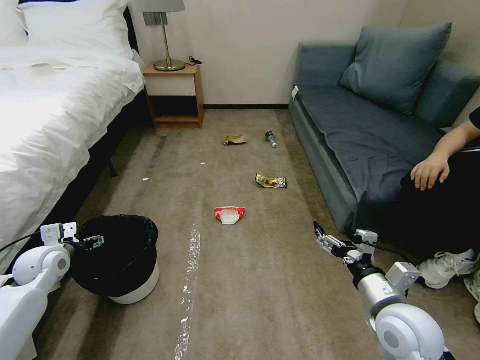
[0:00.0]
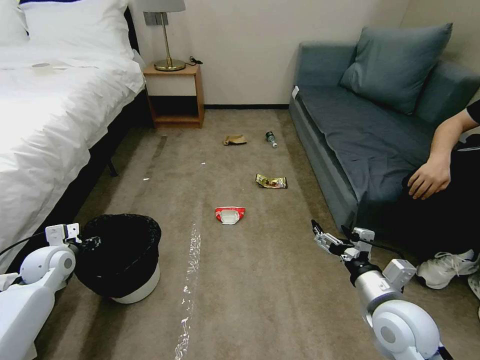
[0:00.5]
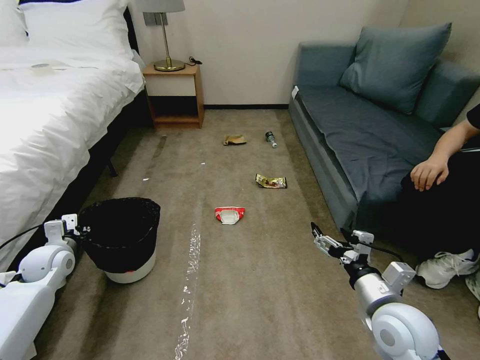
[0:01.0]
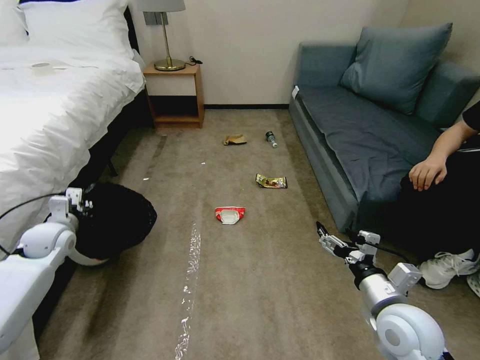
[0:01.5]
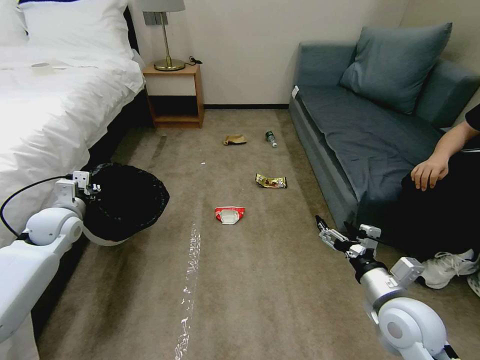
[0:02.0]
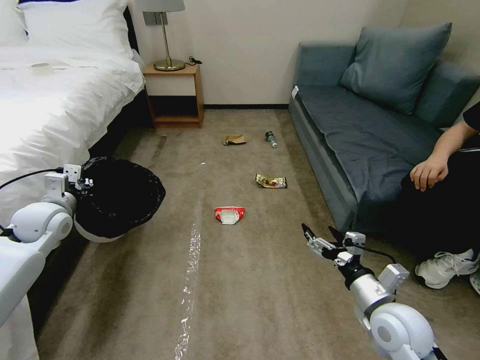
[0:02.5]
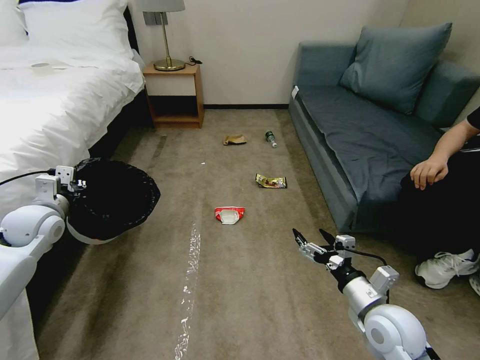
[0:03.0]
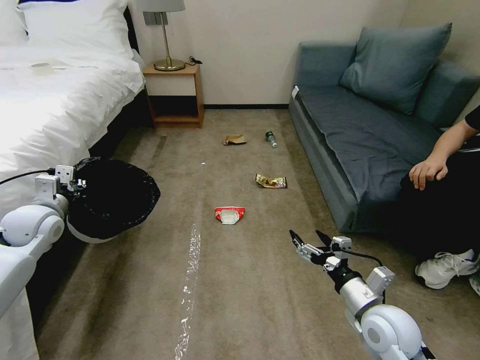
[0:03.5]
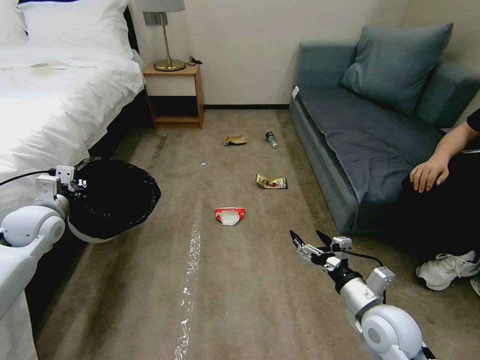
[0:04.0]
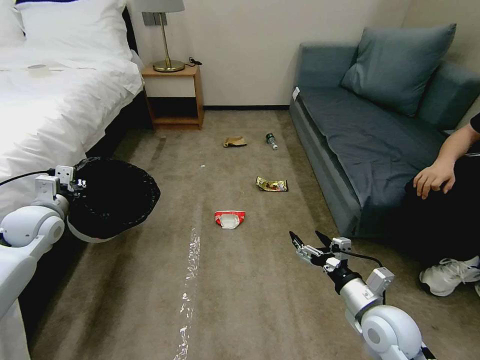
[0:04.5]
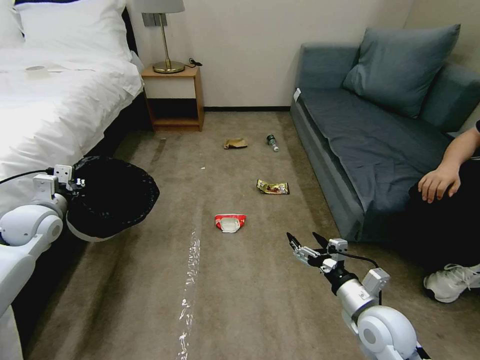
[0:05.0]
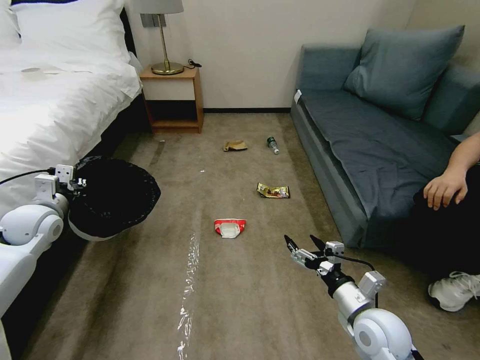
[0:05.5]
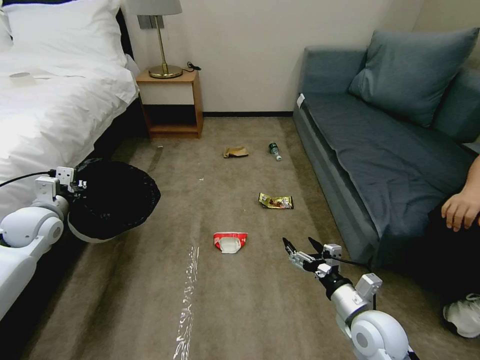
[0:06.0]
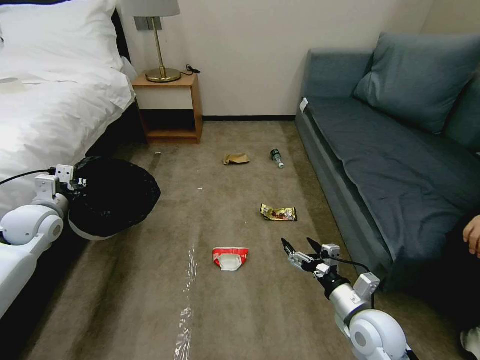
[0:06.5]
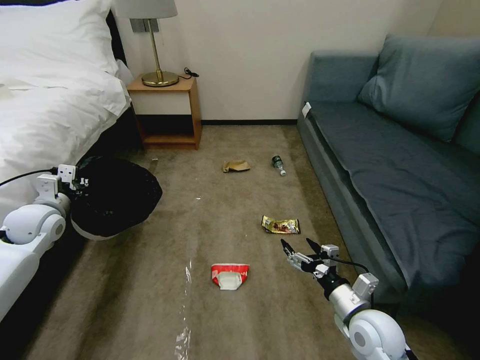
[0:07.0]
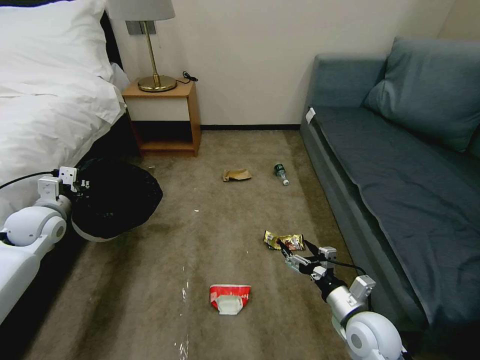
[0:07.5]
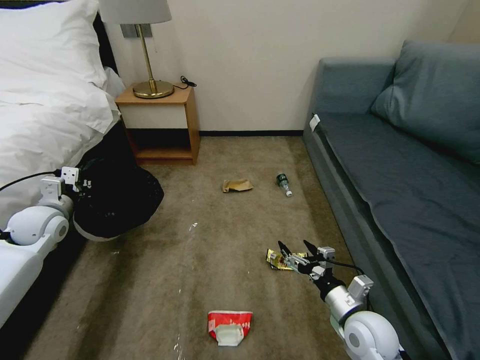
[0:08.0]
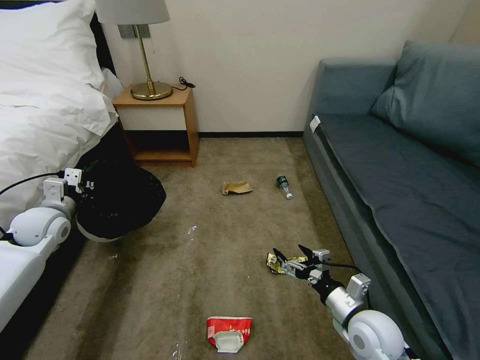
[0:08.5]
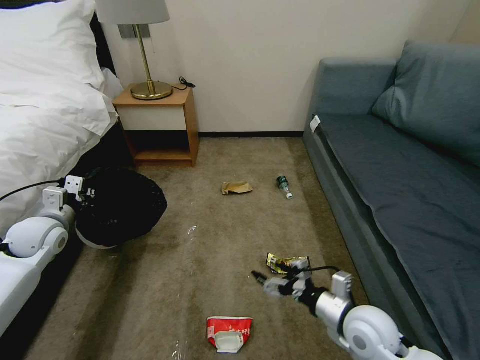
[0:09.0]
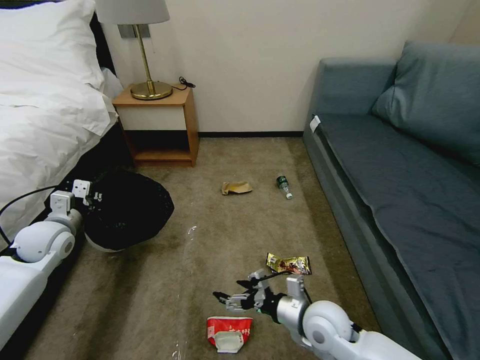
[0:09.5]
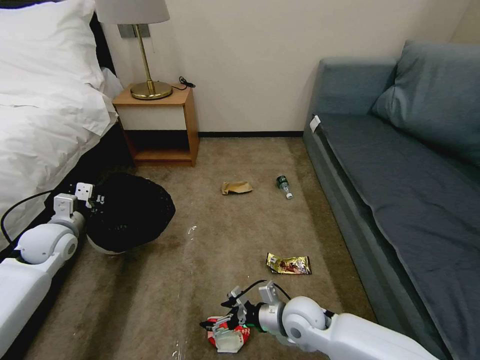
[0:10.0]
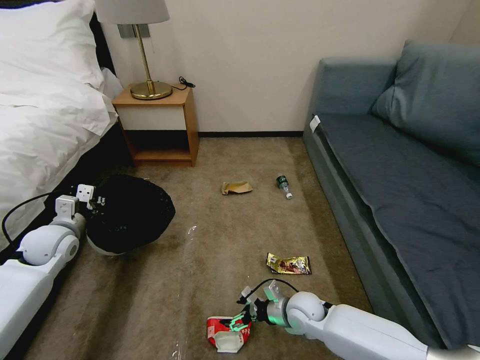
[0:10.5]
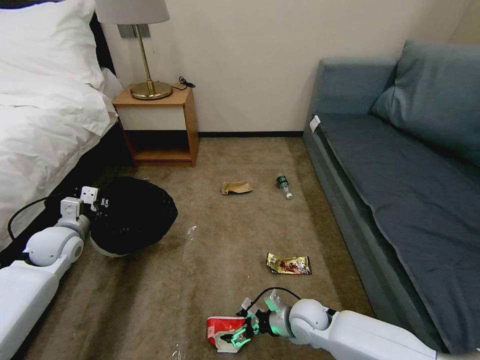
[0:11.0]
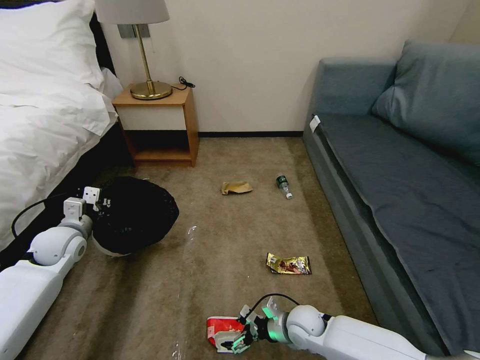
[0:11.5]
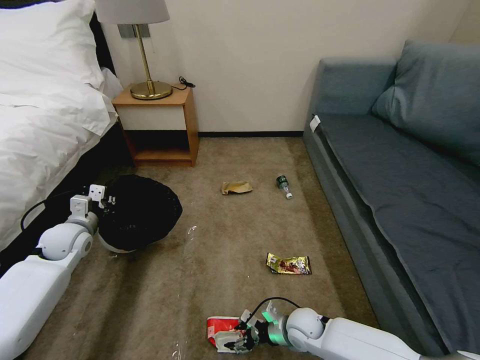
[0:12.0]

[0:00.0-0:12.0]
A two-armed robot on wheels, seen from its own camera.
Task of the whole recording: Pick up the trash bin, then pick up the garbage on the floor and place it into the trash bin.
0:00.0 to 0:02.0: The left gripper is displaced upward and forward by about 10 cm, and closes up.
0:02.0 to 0:04.0: There are only small adjustments of the grippers.
0:08.0 to 0:10.0: The right gripper heads to the left, covering roughly 10 cm.
0:10.0 to 0:12.0: The right gripper travels downward by about 10 cm.

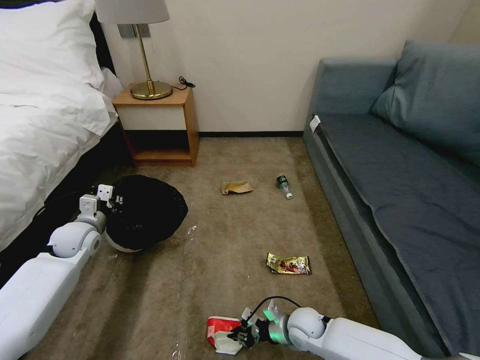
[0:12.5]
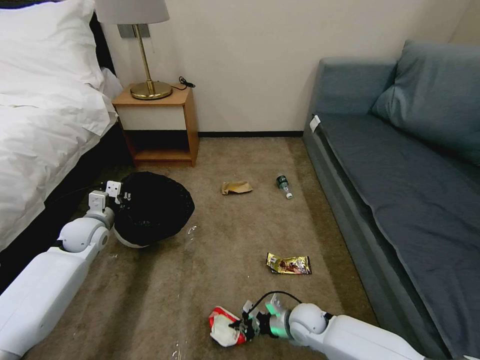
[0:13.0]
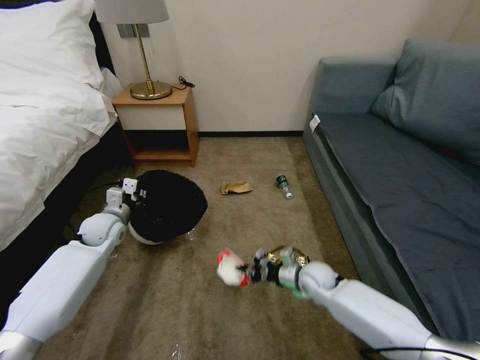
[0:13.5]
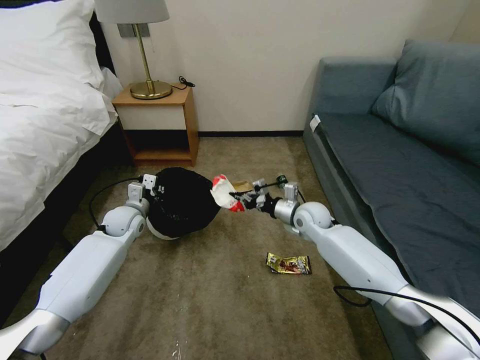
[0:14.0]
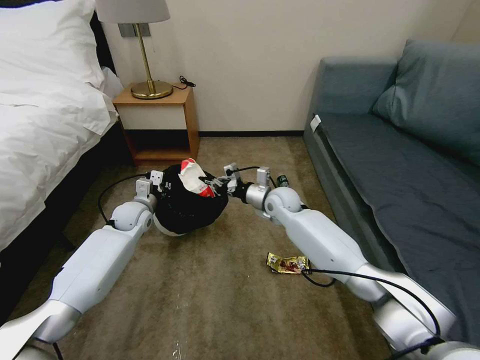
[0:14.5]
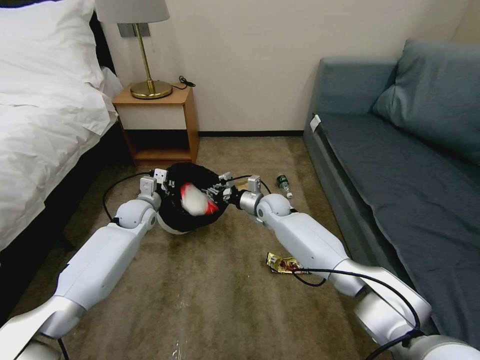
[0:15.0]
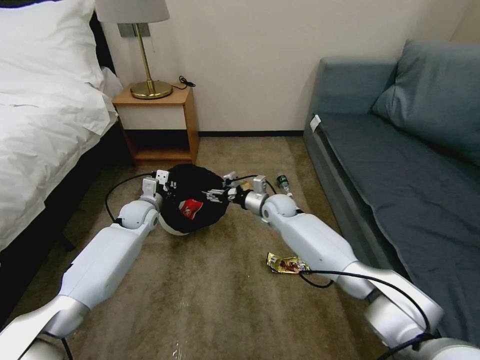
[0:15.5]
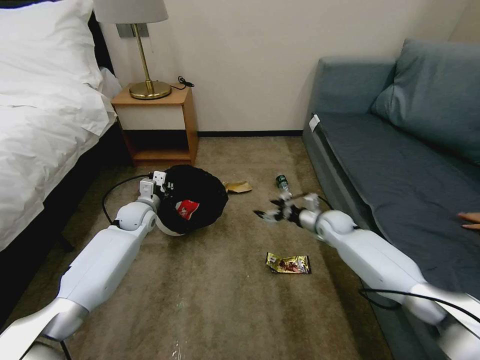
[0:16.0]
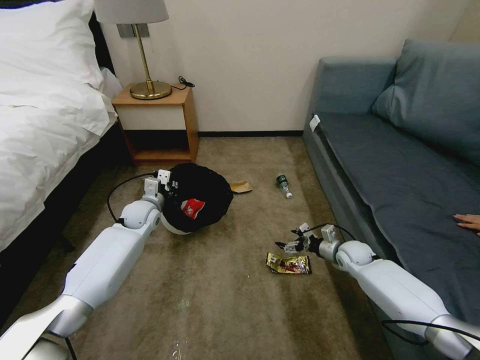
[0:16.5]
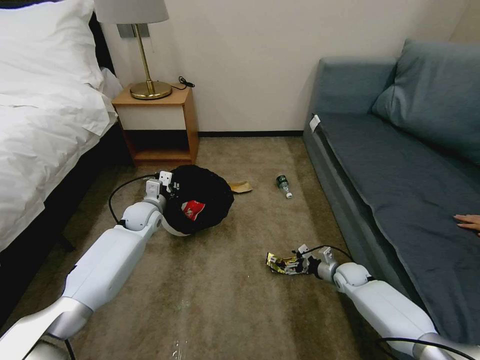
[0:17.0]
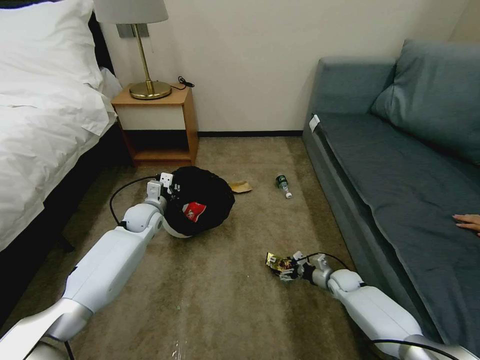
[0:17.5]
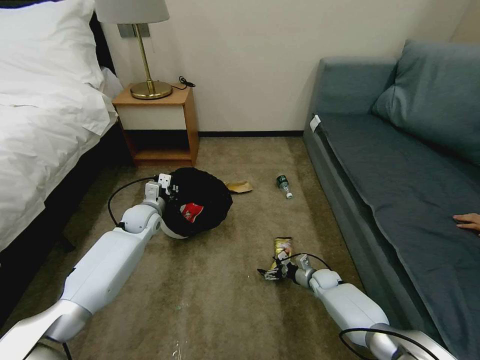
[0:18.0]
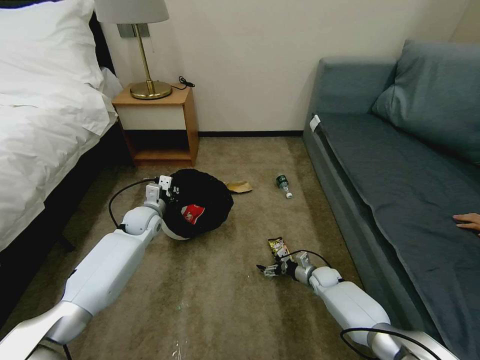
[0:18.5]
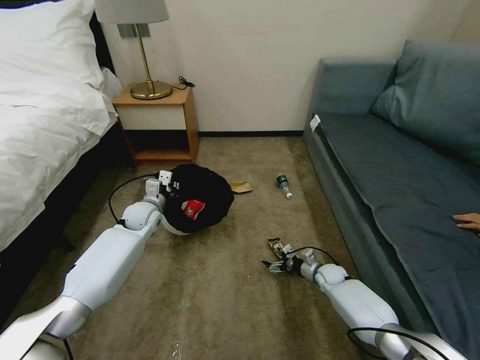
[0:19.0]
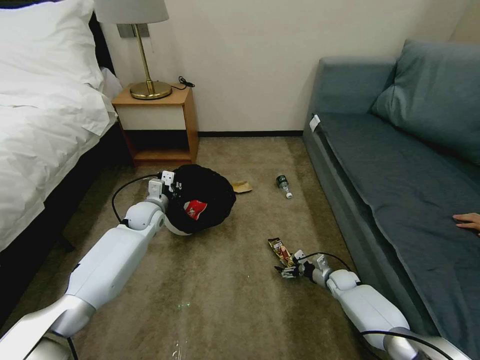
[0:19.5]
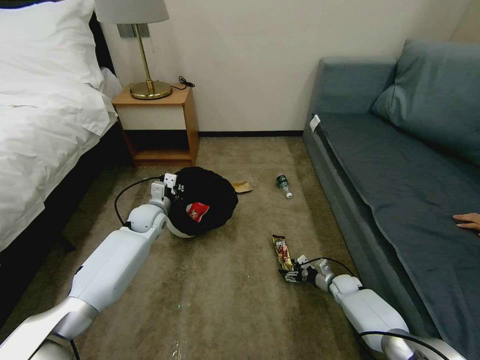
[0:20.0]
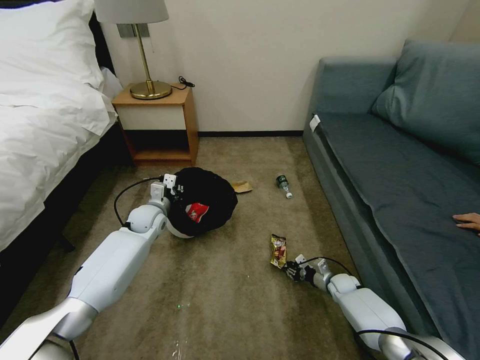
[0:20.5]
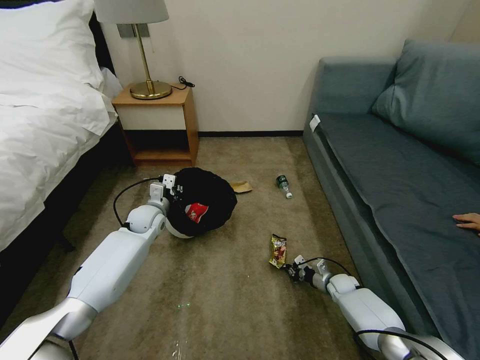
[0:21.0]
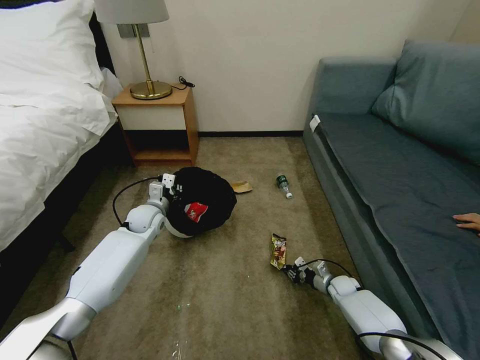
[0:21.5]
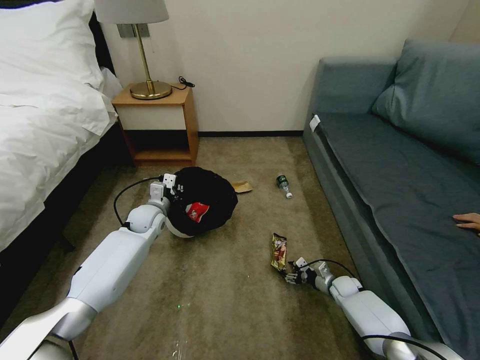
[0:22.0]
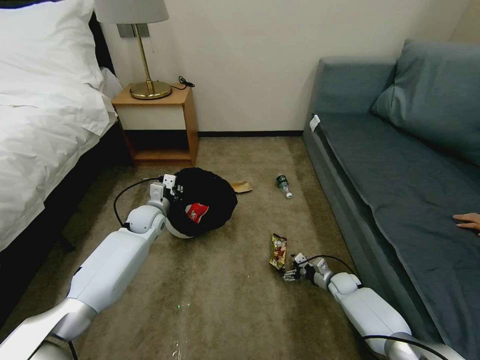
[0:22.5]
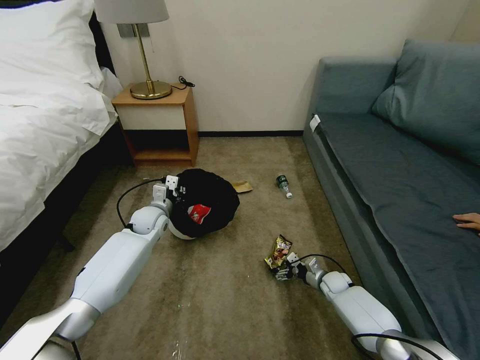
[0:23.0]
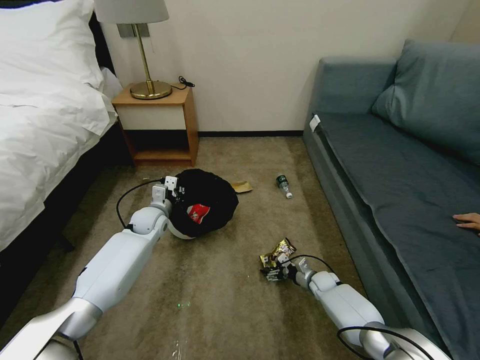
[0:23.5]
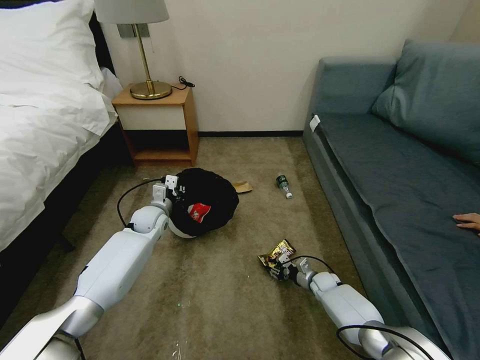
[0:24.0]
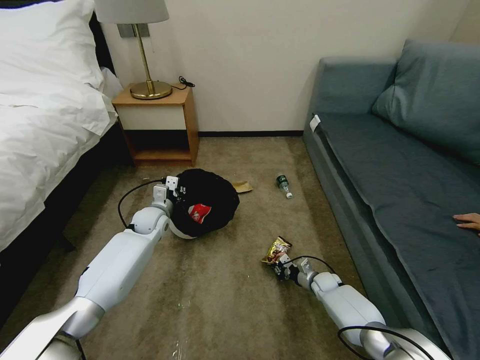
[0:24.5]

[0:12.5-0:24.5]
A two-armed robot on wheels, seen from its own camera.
Task of the whole recording: Pick up the trash bin, then pick up the garbage on the floor and place it into the trash bin.
0:12.5 to 0:14.5: The right gripper goes approximately 35 cm forward and upward, while the left gripper shifts roughly 15 cm to the right and forward.
0:14.5 to 0:16.5: The right gripper heads to the right and downward, covering approximately 30 cm, and opens its fingers.
0:16.5 to 0:18.5: The right gripper heads downward and to the left, covering some 15 cm.
0:18.5 to 0:20.5: The right gripper travels to the right by about 5 cm, and closes.
0:20.5 to 0:22.5: The right gripper opens up.
0:22.5 to 0:24.5: The right gripper changes place by some 5 cm, and closes its fingers.

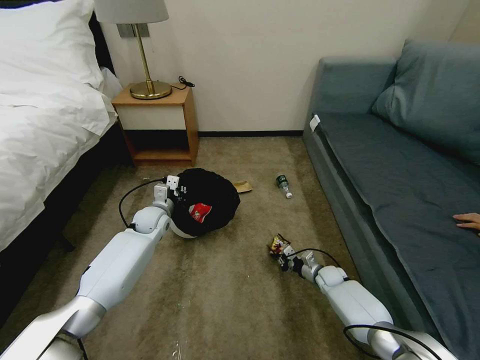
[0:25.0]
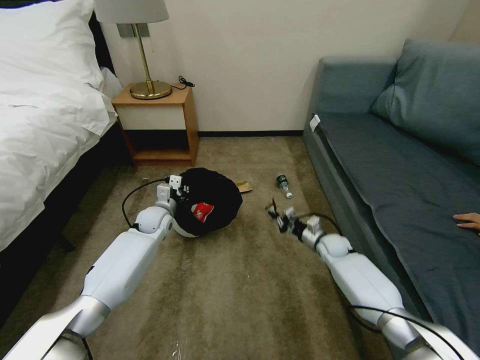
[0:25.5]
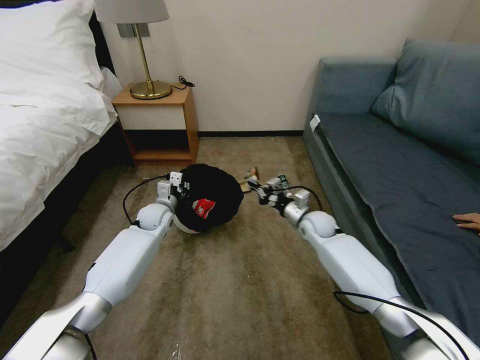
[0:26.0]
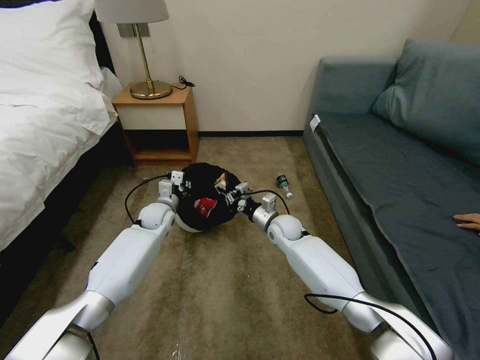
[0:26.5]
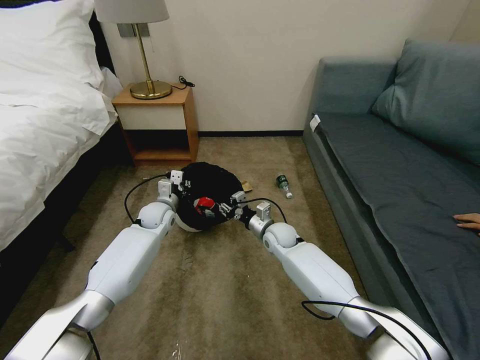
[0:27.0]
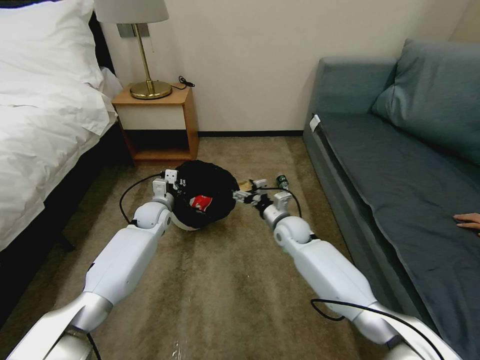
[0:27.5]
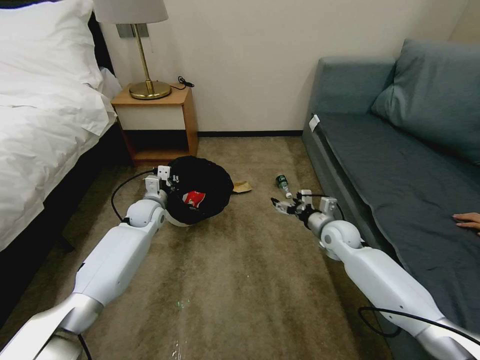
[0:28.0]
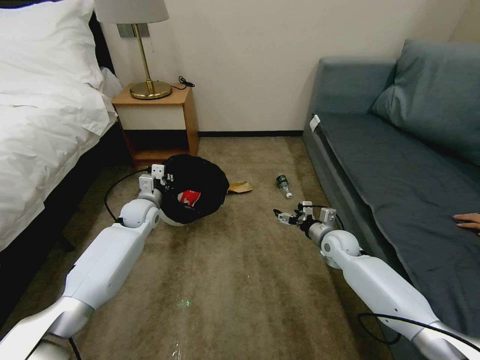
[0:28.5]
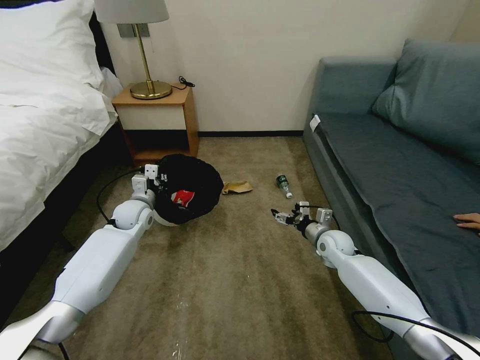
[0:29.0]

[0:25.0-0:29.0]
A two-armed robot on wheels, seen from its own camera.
Task of the whole recording: Pick up the trash bin, then pick up the garbage on the floor and place it into the trash bin.
0:25.0 to 0:27.0: The right gripper travels to the left and upward by about 25 cm.
0:27.0 to 0:29.0: The right gripper goes approximately 15 cm to the right, and opens its fingers, while the left gripper shifts approximately 5 cm to the left.
